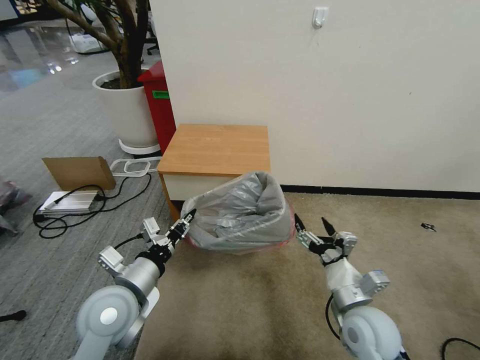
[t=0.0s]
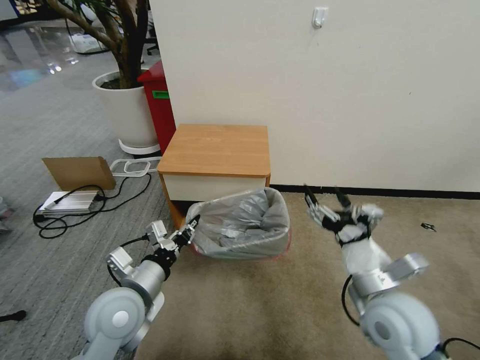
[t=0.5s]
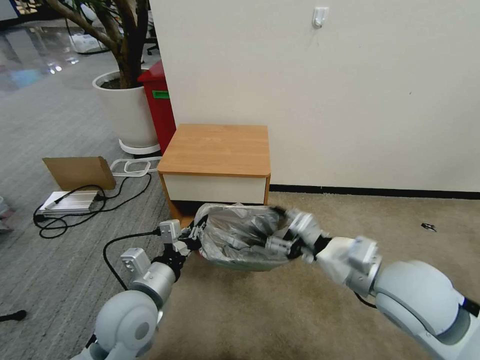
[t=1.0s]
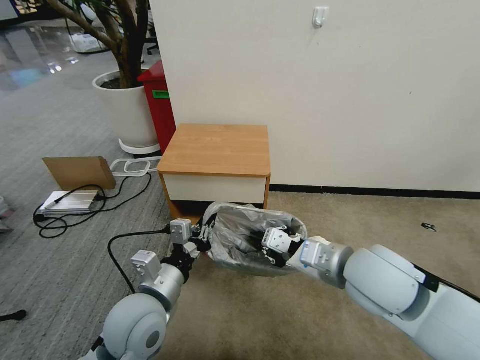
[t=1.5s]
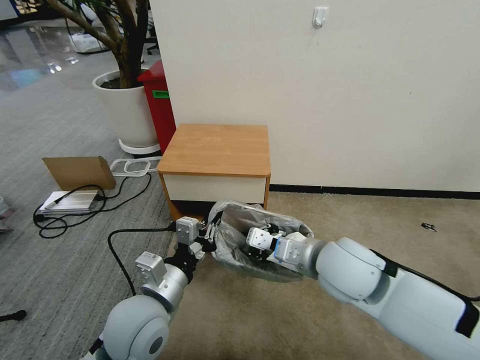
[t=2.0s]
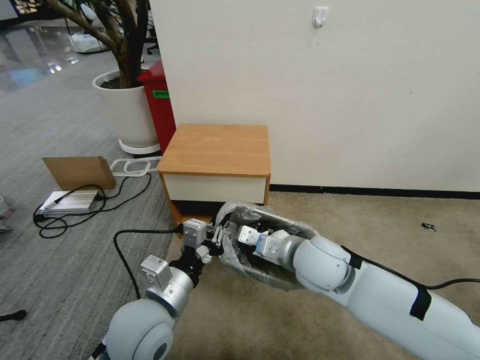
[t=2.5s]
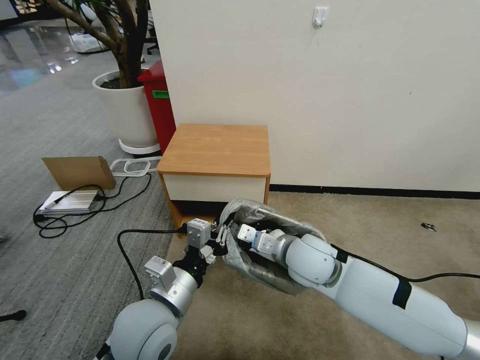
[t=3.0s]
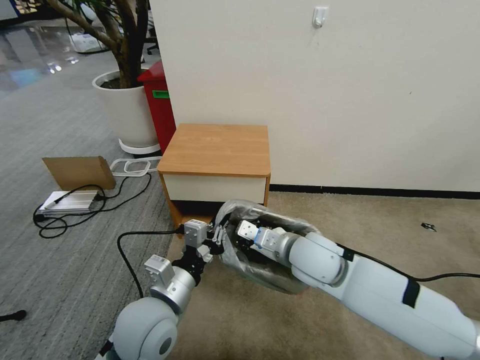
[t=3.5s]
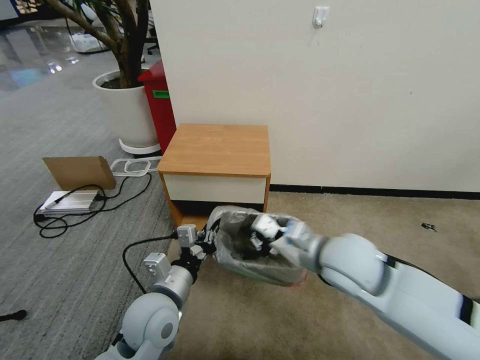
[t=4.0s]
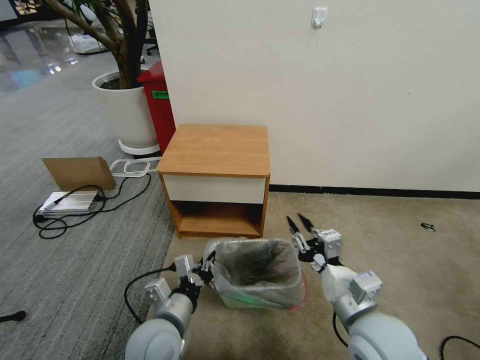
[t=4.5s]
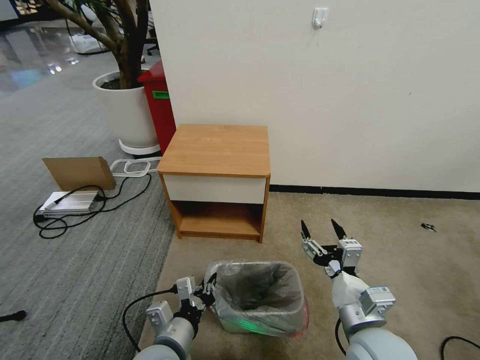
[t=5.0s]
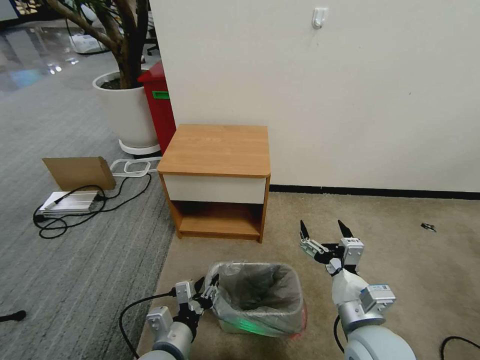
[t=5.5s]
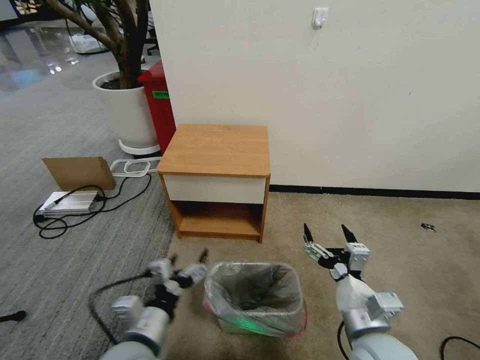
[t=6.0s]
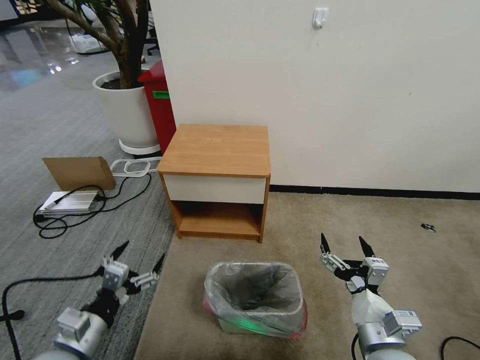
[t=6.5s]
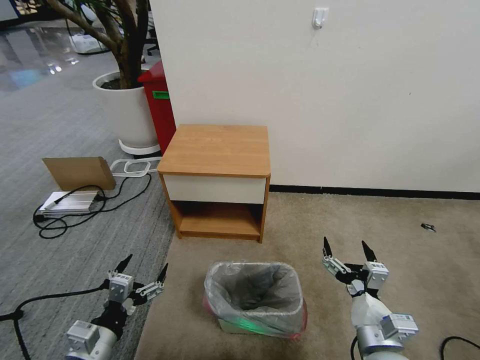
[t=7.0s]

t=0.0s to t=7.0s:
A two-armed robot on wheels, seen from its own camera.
Task of the whole recording: Pick up the garbage bag from the table and place it over the trash can.
t=0.0s to t=2.0s: The left gripper shifts approximately 5 cm to the right. The right gripper goes some 20 cm upward, to the left and forward, and closes.
t=2.0s to t=3.5s: The right gripper is displaced downward by about 5 cm.
t=3.5s to t=5.0s: The left gripper shifts about 10 cm downward and backward. The right gripper goes about 20 cm backward and to the right, and opens.
t=5.0s to t=7.0s: The right gripper changes place by some 5 cm, while the left gripper heads to the left, covering approximately 15 cm, and opens.

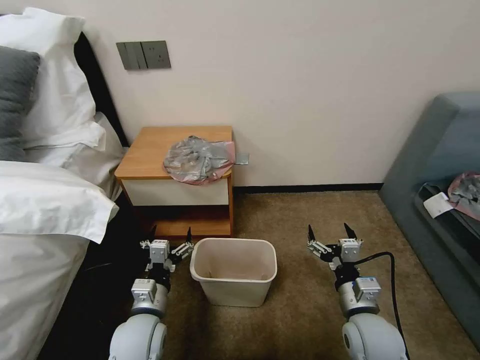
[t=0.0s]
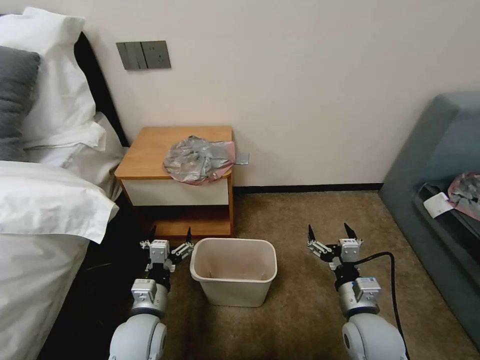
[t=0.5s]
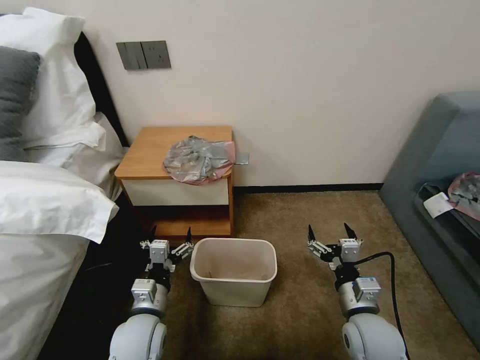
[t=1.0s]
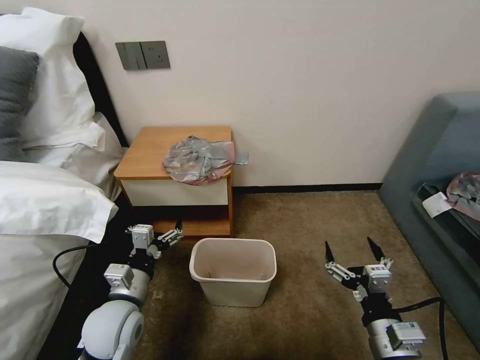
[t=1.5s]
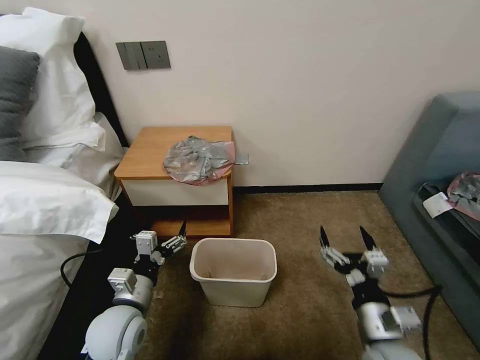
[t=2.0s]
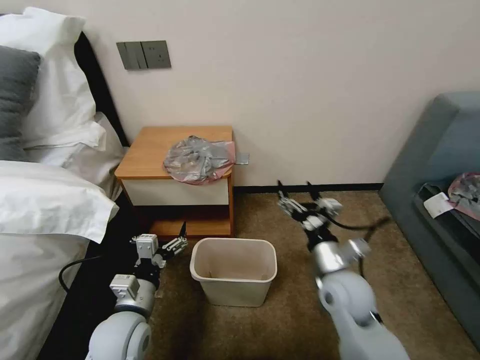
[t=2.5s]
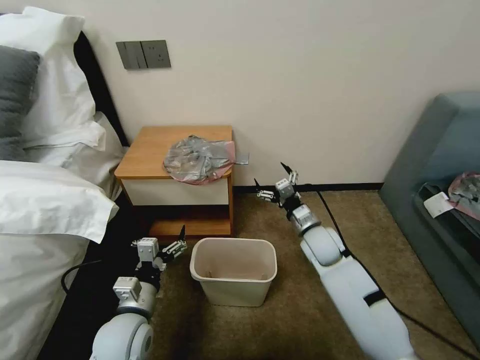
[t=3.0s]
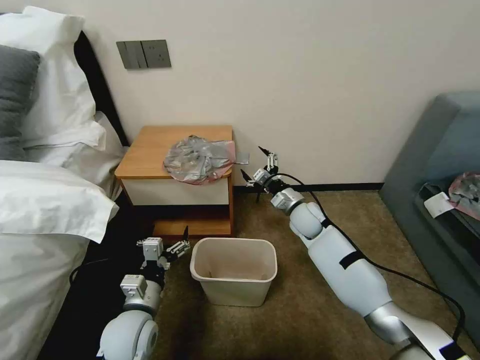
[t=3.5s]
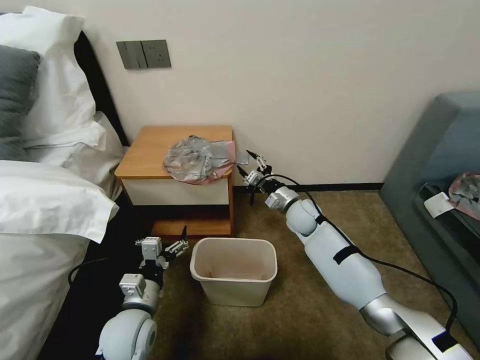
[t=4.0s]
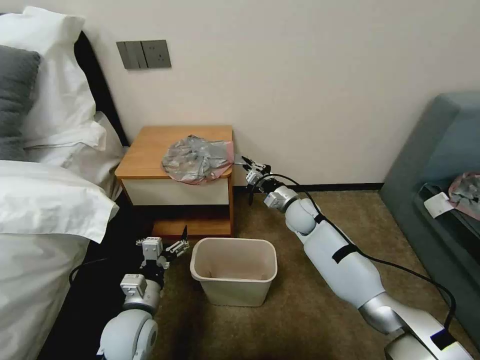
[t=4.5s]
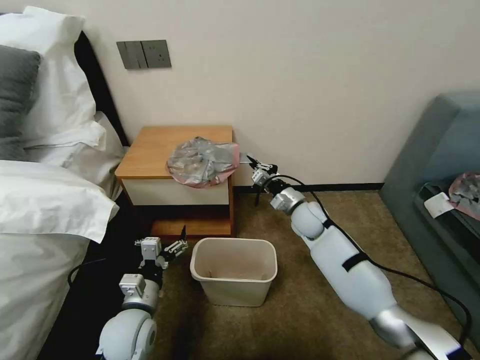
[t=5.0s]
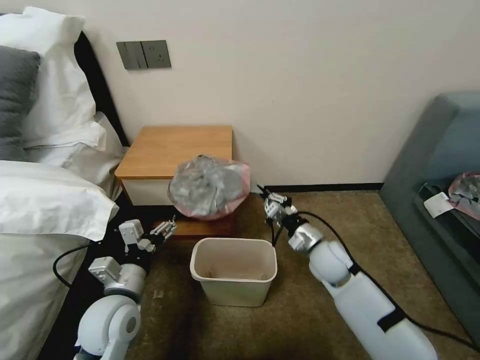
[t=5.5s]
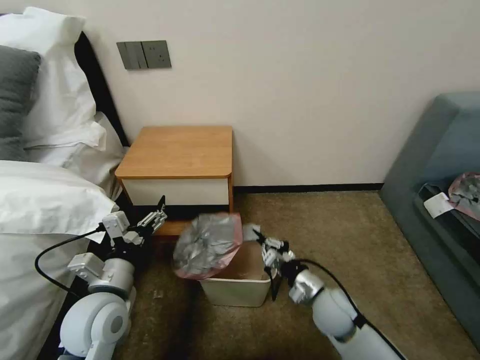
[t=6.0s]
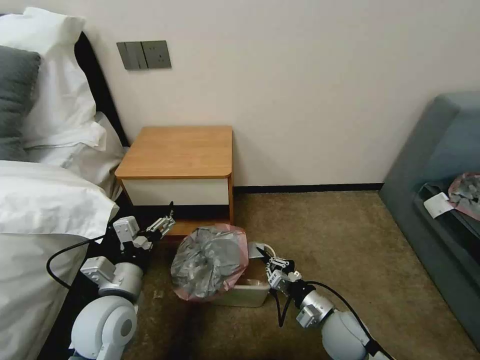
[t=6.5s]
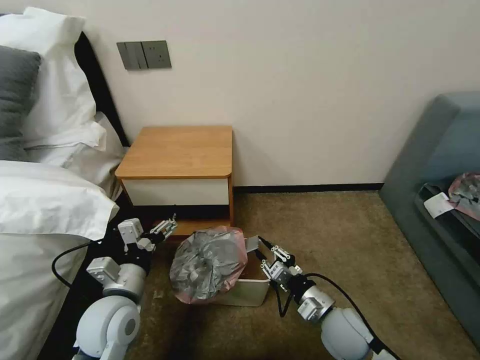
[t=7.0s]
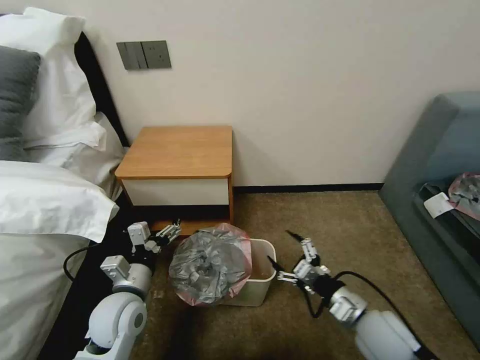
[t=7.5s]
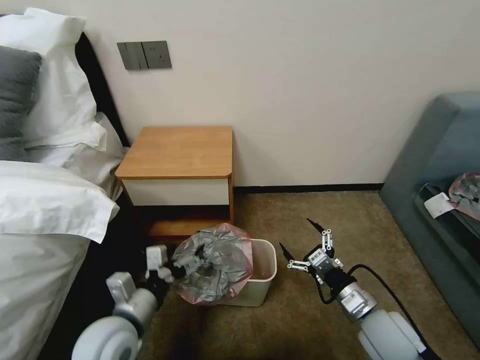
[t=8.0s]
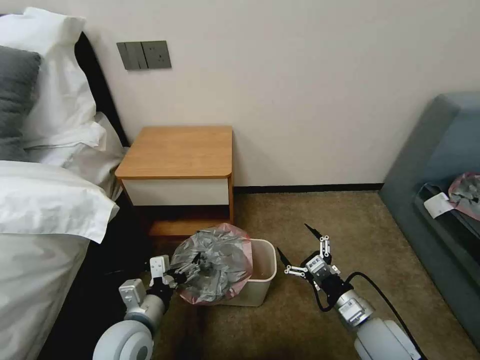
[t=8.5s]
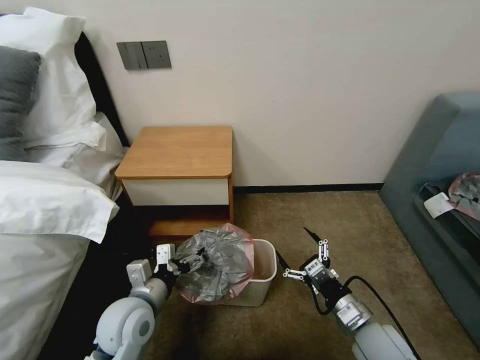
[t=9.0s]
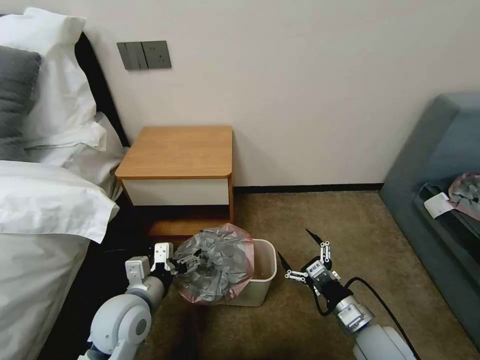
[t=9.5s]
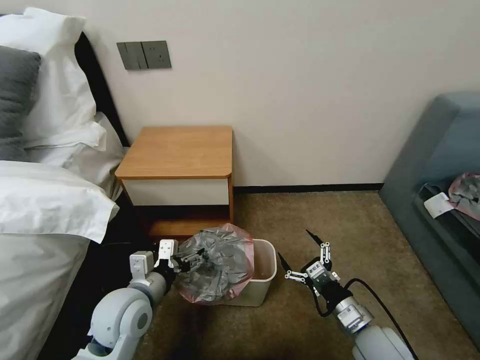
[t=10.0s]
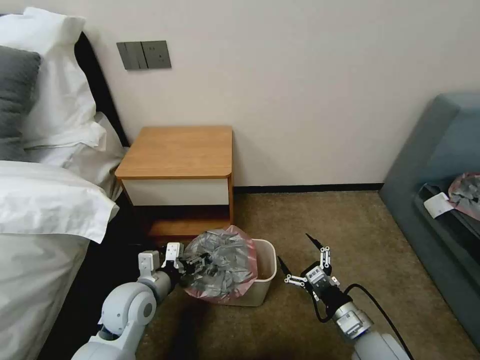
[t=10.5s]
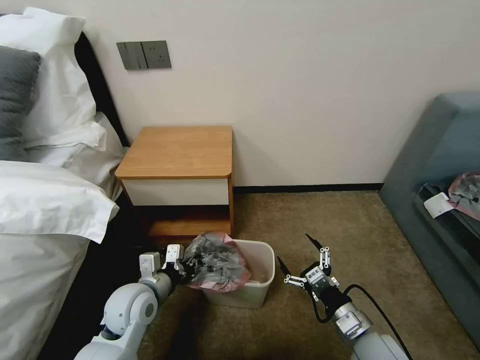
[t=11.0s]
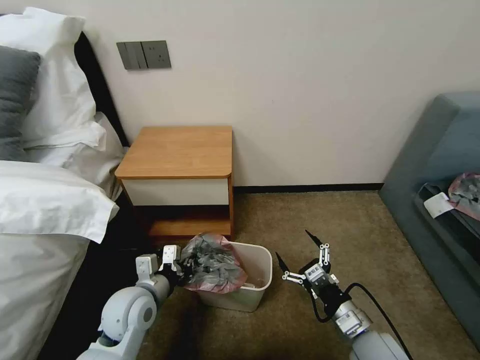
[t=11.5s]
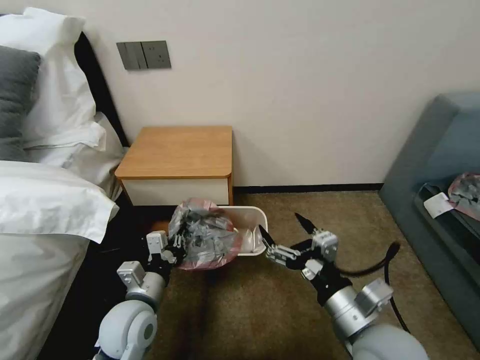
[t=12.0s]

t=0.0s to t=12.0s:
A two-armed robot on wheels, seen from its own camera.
Task of the whole recording: Pick up the garbage bag from the table and place it over the trash can.
t=2.0s to t=4.0s: The right gripper travels forward by approximately 35 cm, and closes its fingers.
t=4.0s to t=6.0s: The left gripper travels upward by roughly 10 cm, while the right gripper travels backward by some 20 cm, and closes.
t=6.0s to t=8.0s: The right gripper shifts roughly 10 cm backward, to the right and upward, and opens up.
t=8.0s to t=10.0s: The grippers move only a little.
t=10.0s to t=12.0s: The right gripper moves upward and to the left, approximately 15 cm. Meanwhile the left gripper closes.

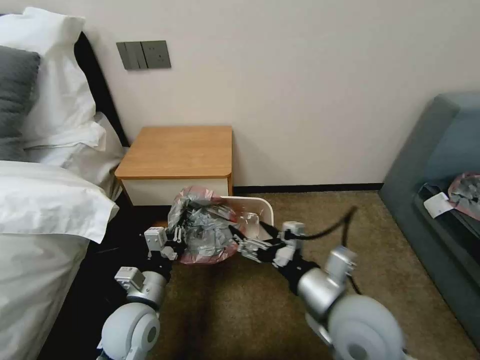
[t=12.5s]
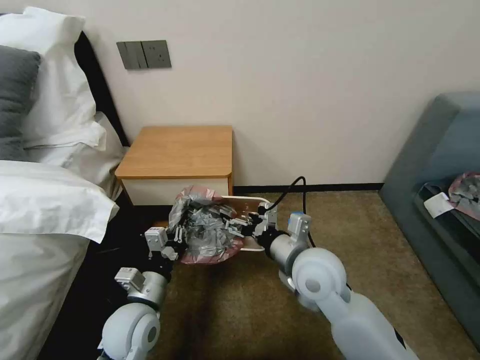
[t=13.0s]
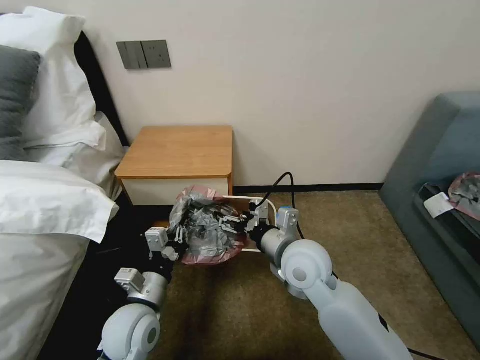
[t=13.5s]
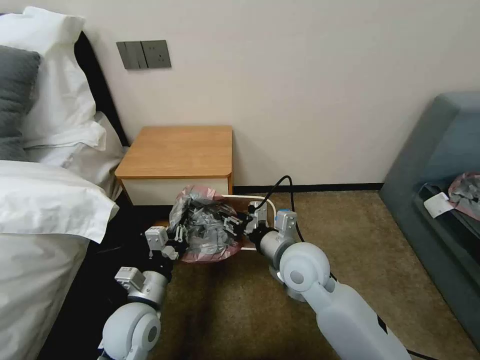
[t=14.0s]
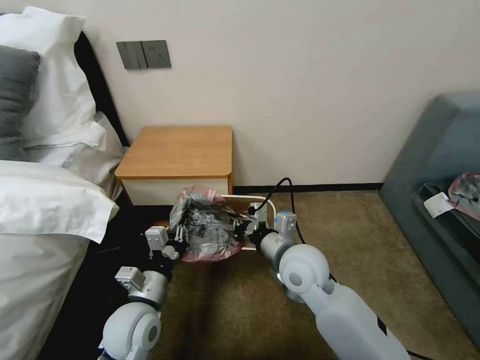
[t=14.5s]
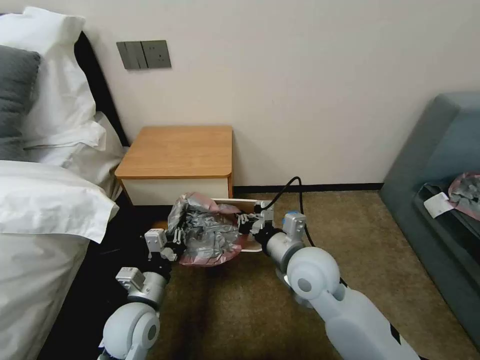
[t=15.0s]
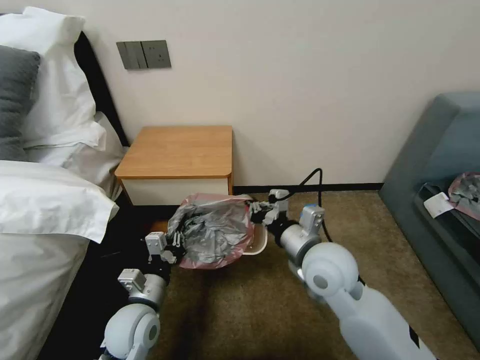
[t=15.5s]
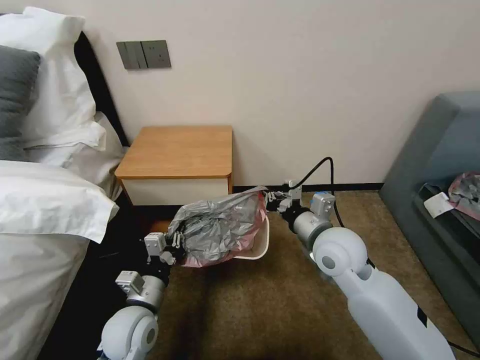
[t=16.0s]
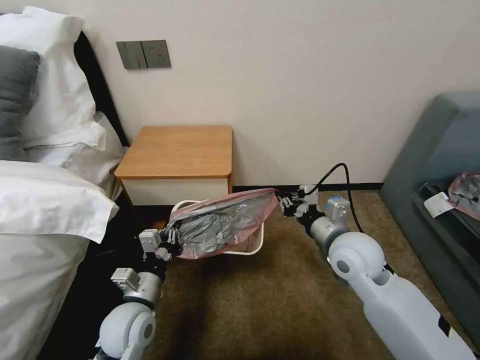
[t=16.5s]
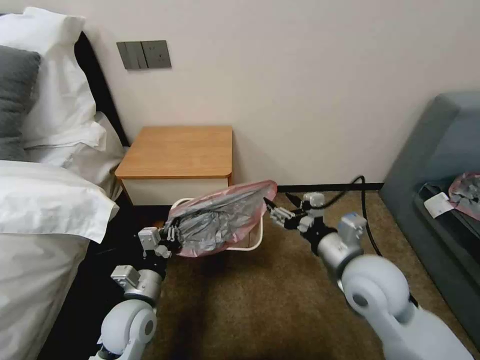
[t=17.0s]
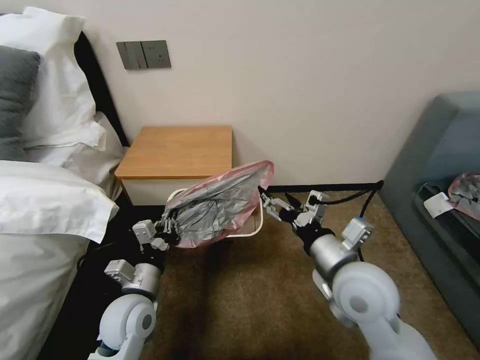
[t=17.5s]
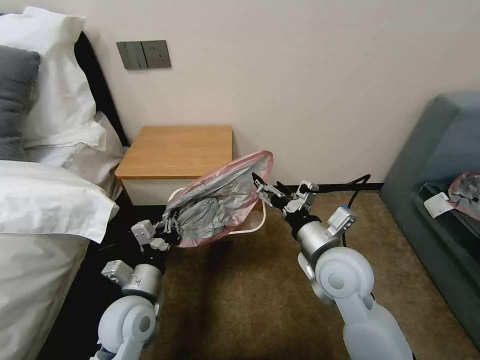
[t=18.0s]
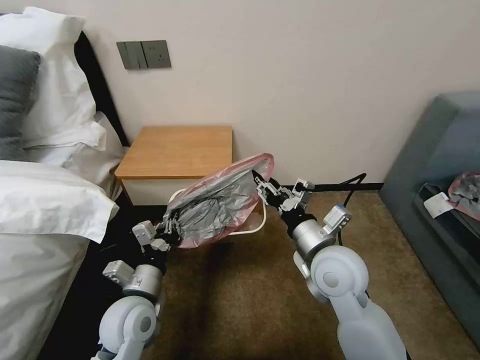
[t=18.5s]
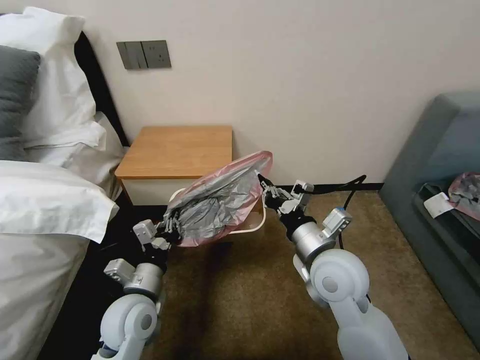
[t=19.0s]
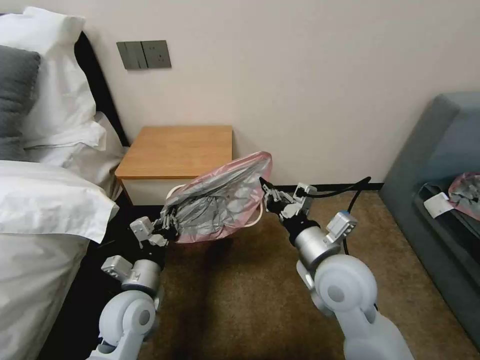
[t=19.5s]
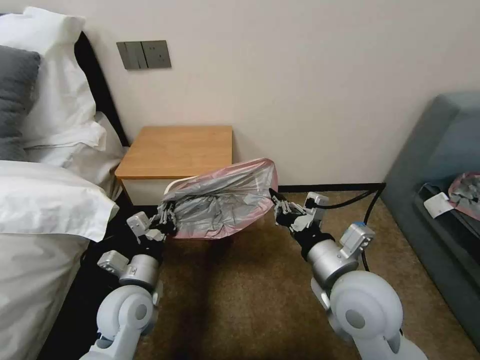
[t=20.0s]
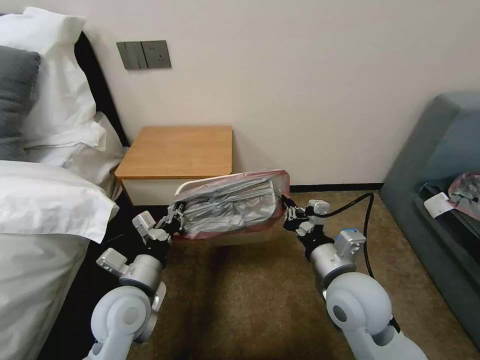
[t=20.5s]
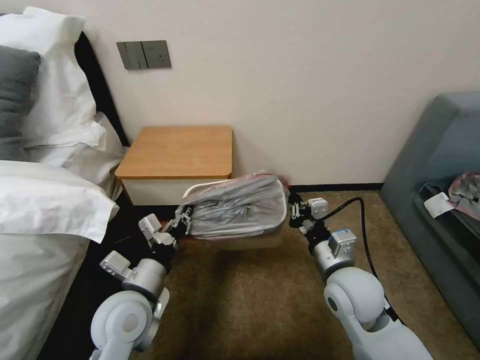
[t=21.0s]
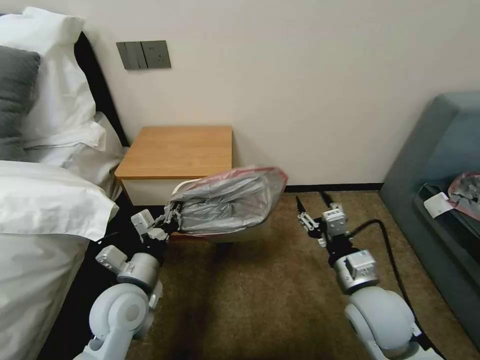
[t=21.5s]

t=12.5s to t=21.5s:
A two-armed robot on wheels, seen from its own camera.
Task of the whole recording: Pick up the garbage bag from the table and place it over the trash can.
t=12.5s to t=14.5s: The right gripper heads forward and to the left, covering about 15 cm, and closes.
t=14.5s to t=17.0s: The right gripper is displaced to the right by roughly 10 cm, and opens its fingers.
t=17.0s to t=19.5s: The right gripper goes about 5 cm to the left, and closes up.
t=19.5s to t=21.5s: The right gripper goes about 10 cm to the right and downward, and opens up.
